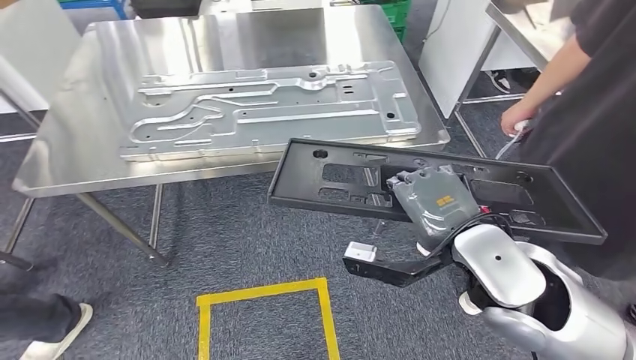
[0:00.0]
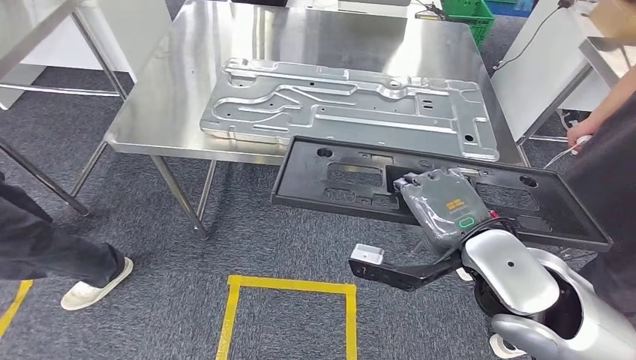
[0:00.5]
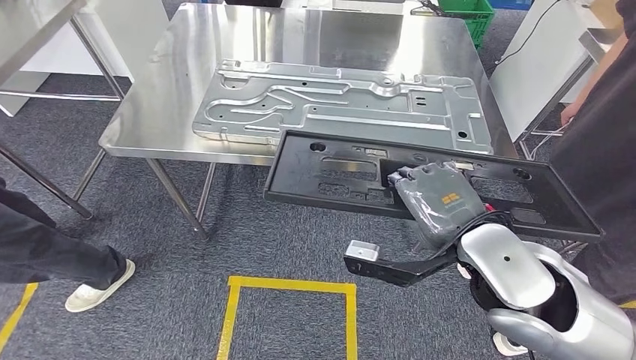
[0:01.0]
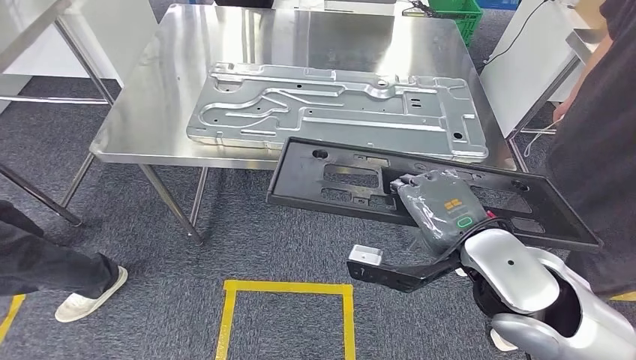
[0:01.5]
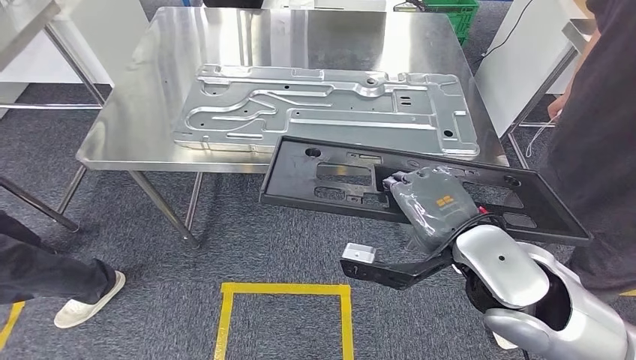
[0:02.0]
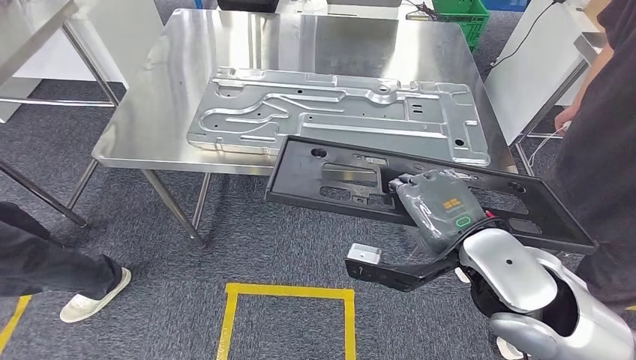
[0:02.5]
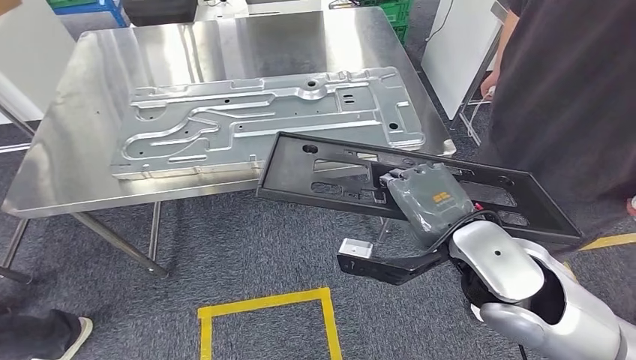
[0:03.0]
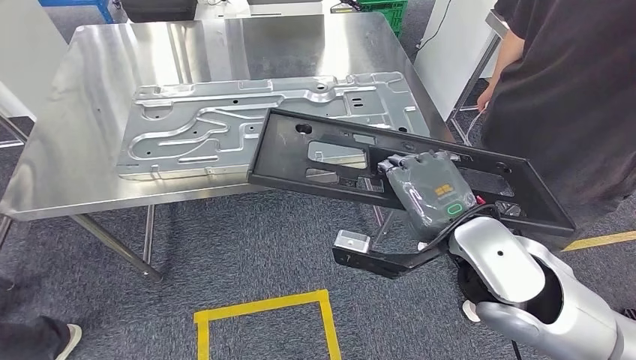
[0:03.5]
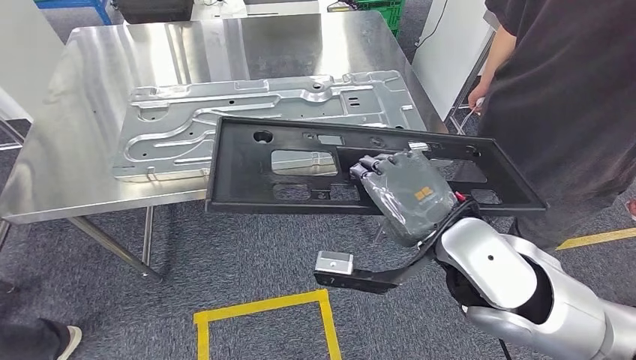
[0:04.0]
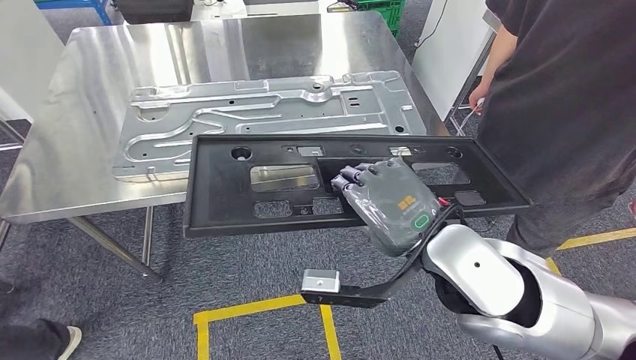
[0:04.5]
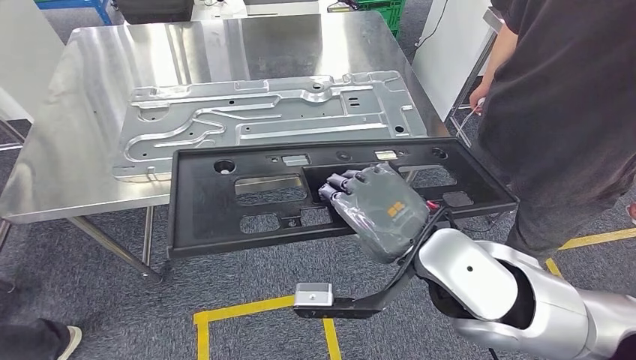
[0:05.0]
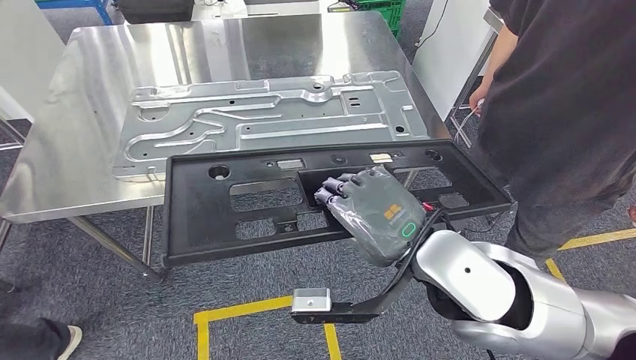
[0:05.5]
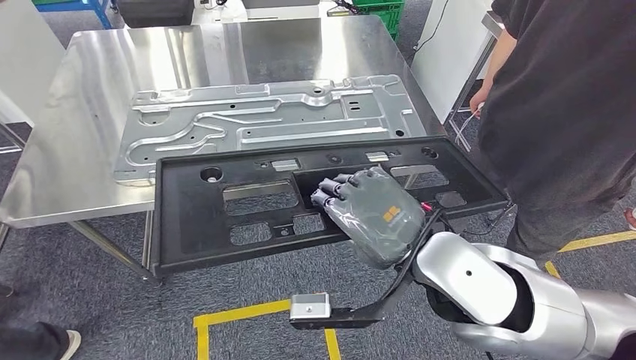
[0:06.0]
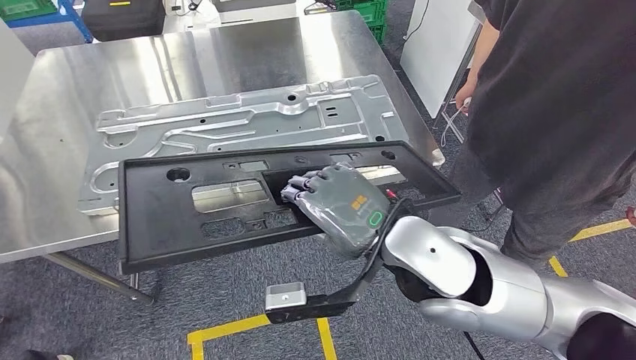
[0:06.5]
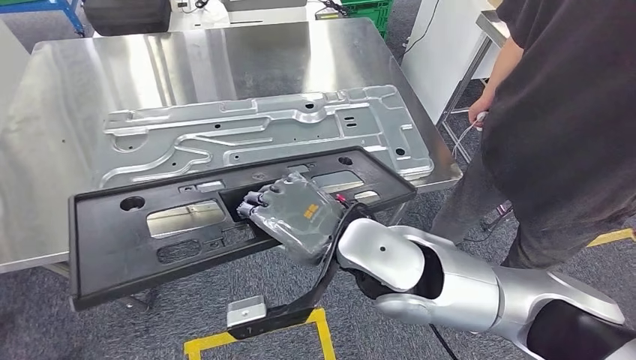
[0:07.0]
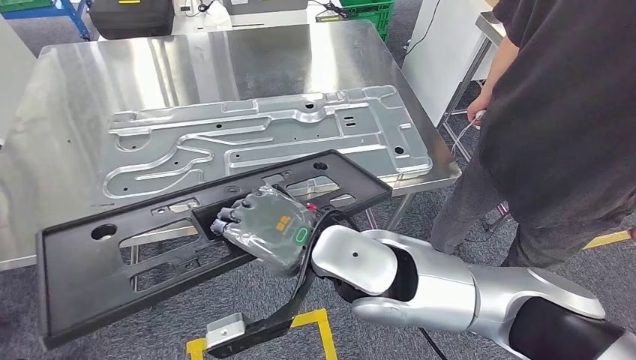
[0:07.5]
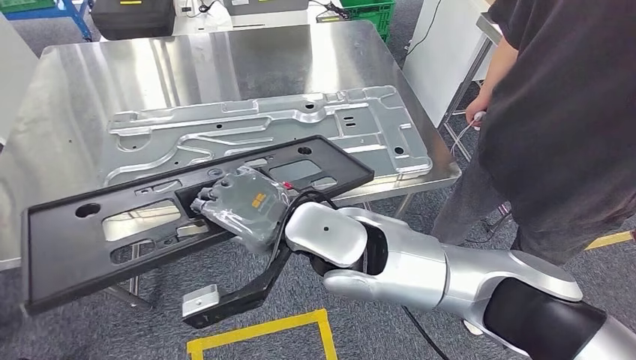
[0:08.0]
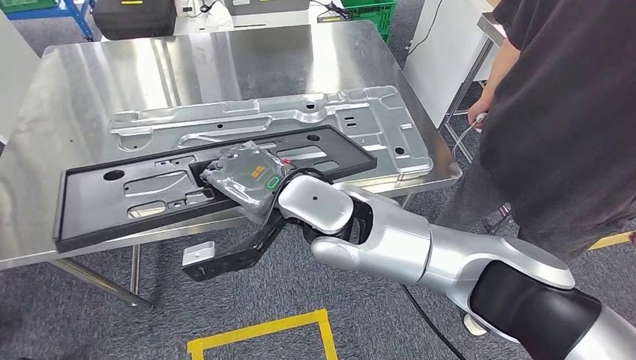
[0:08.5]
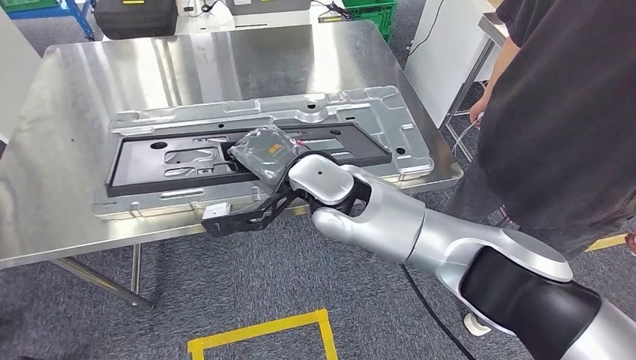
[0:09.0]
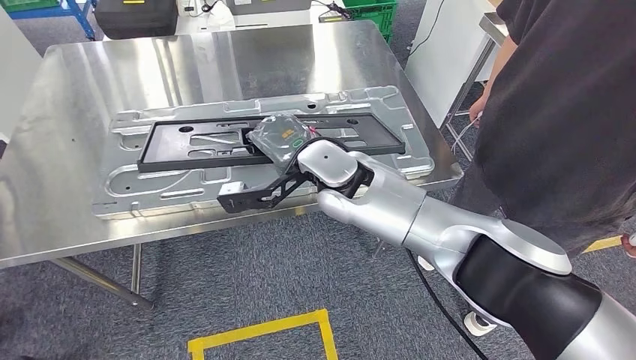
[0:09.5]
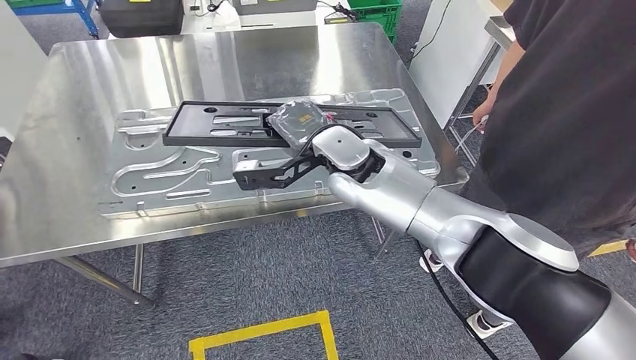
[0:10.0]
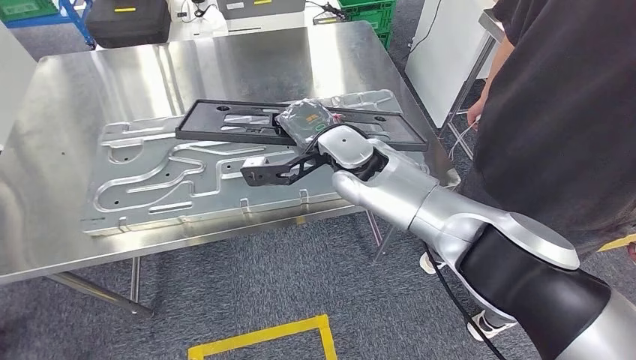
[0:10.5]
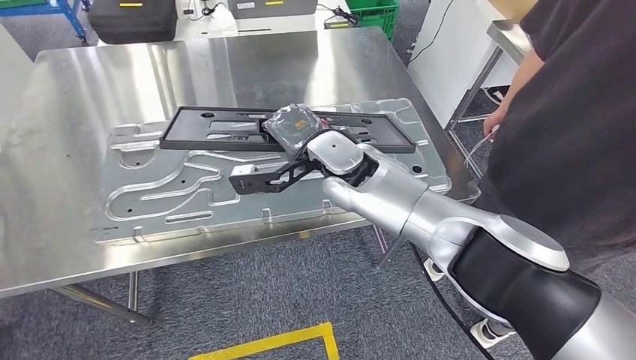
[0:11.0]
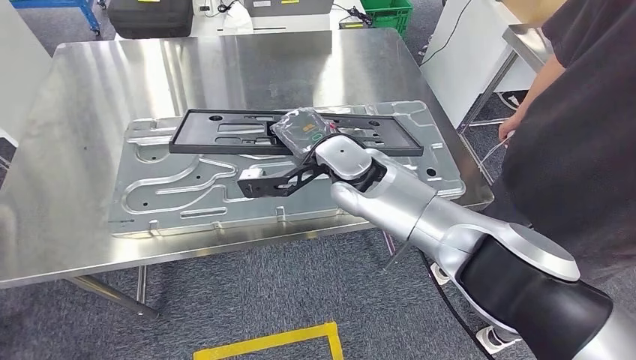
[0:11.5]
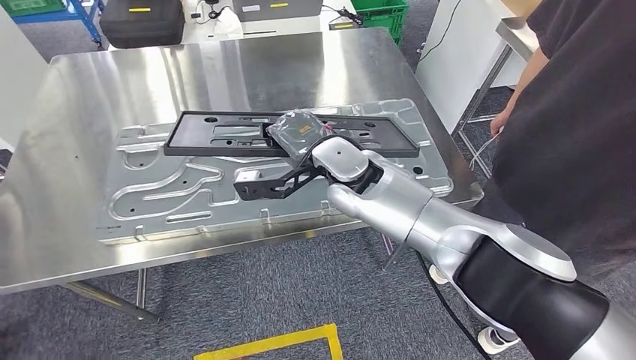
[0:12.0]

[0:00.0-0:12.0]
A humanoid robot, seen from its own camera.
Step, 0:00.0 to 0:05.0: Move the large material to the workbench.

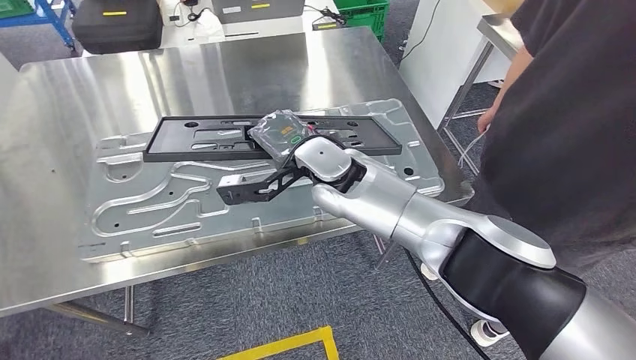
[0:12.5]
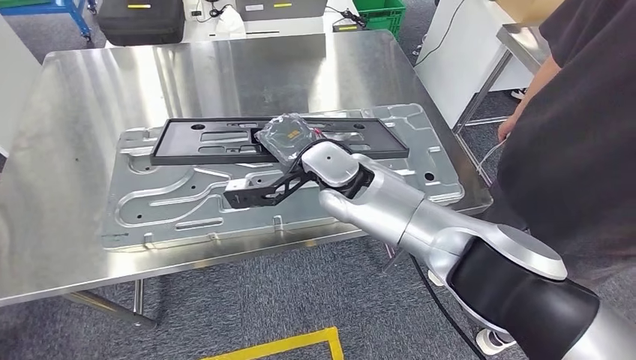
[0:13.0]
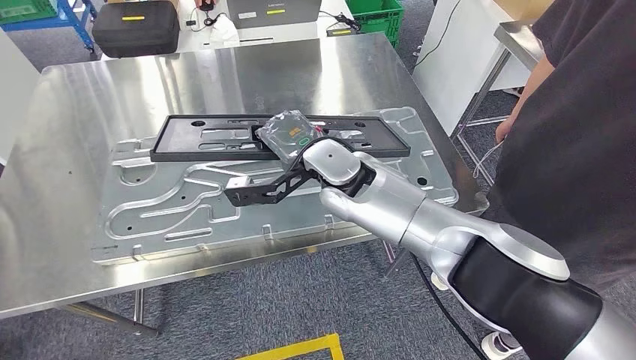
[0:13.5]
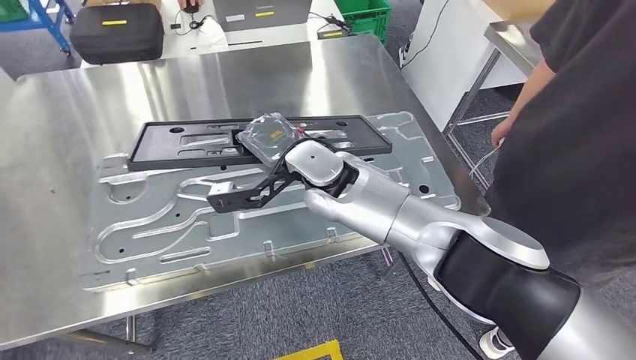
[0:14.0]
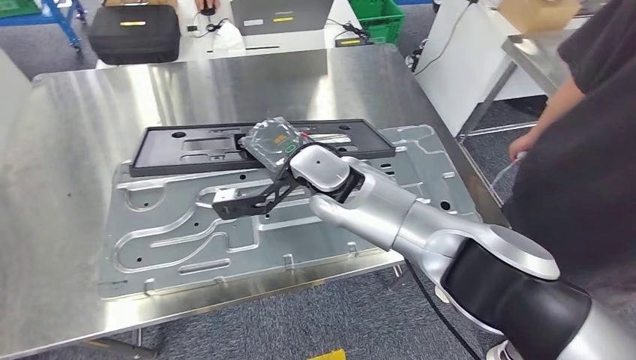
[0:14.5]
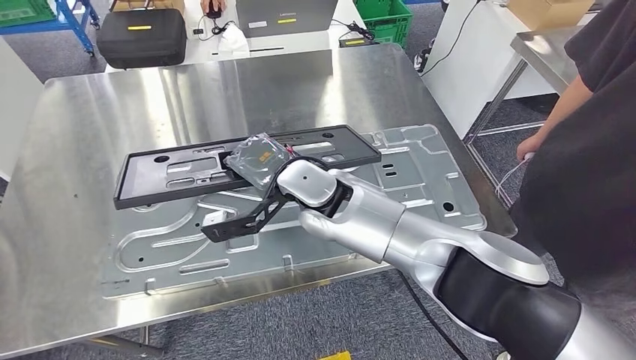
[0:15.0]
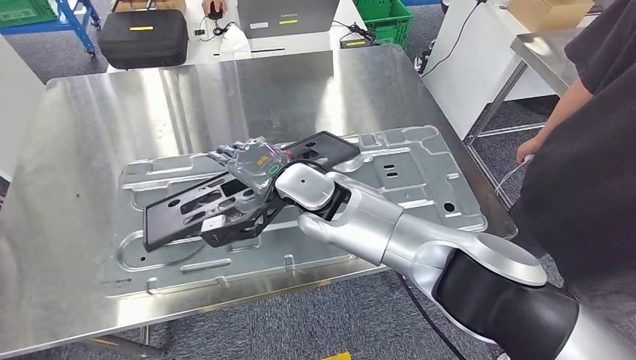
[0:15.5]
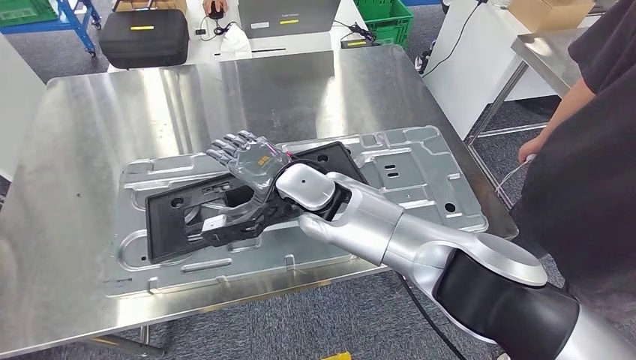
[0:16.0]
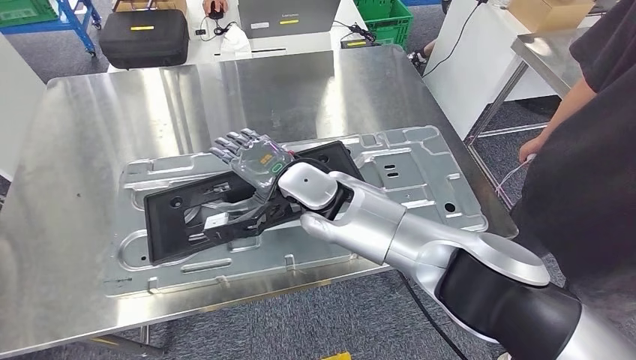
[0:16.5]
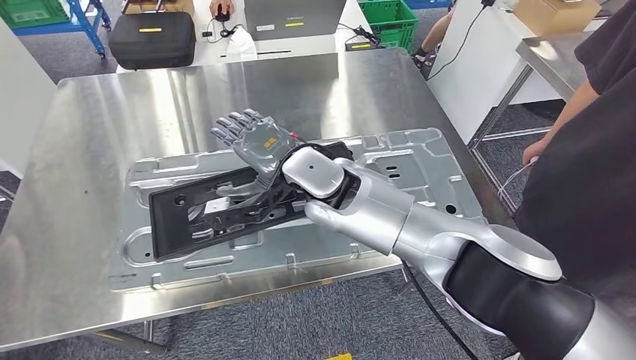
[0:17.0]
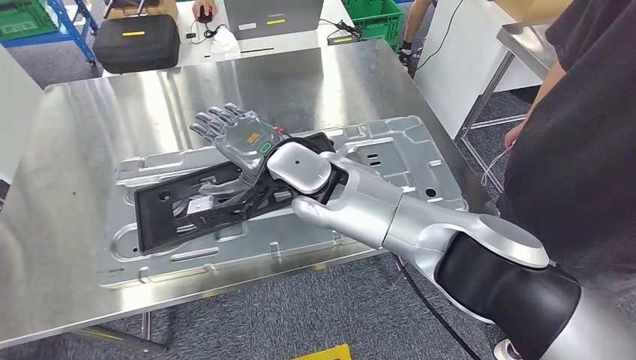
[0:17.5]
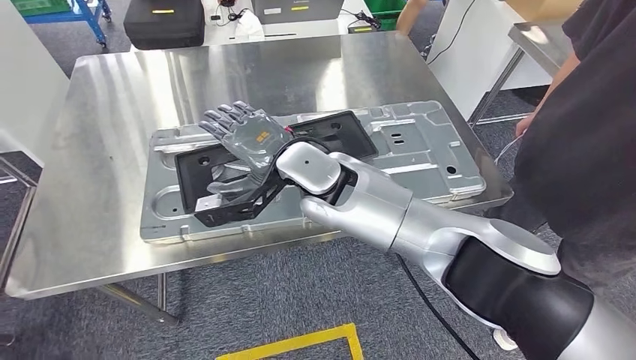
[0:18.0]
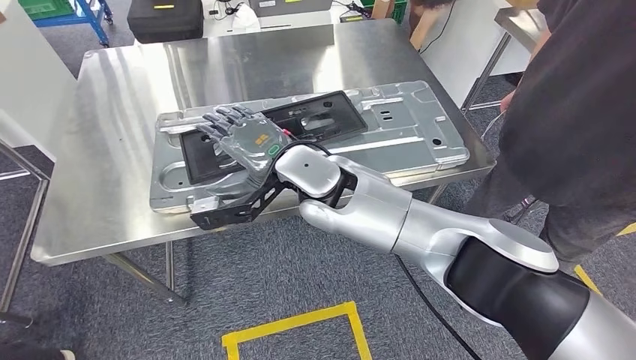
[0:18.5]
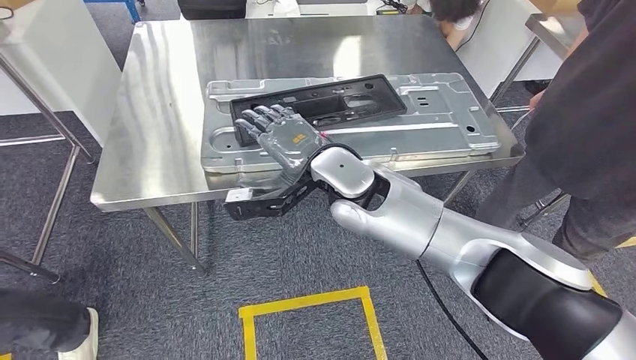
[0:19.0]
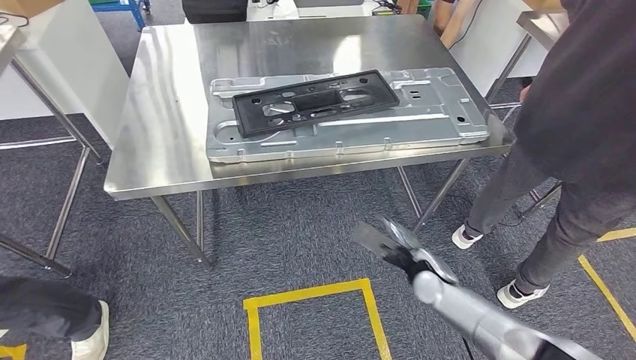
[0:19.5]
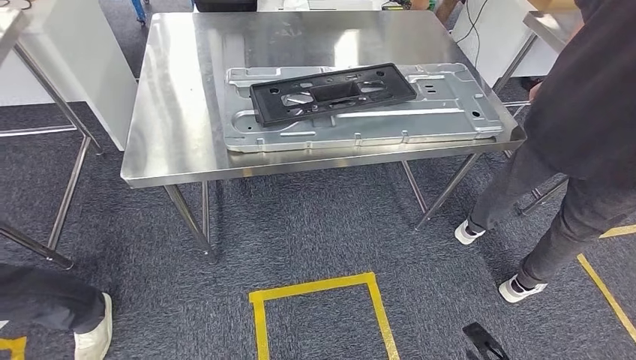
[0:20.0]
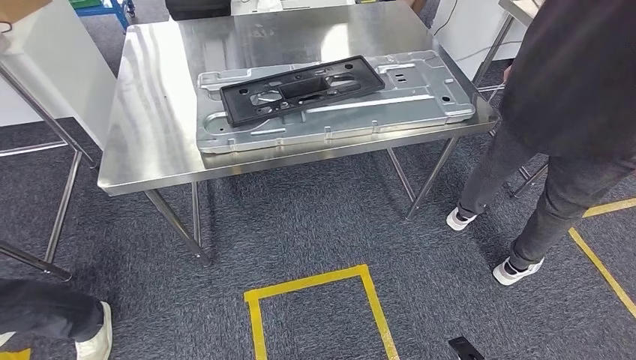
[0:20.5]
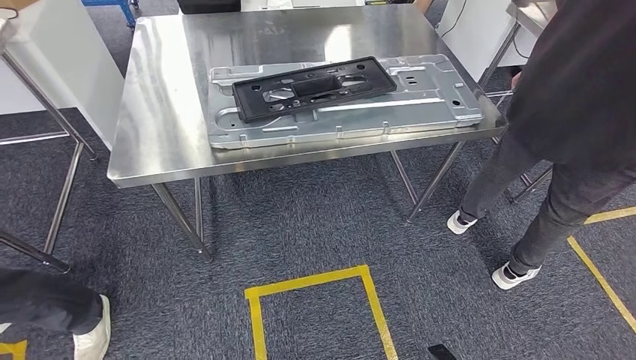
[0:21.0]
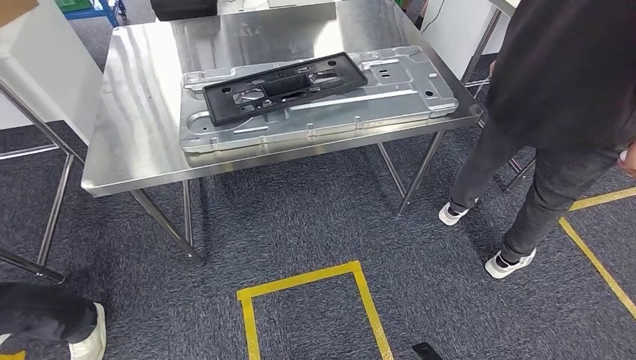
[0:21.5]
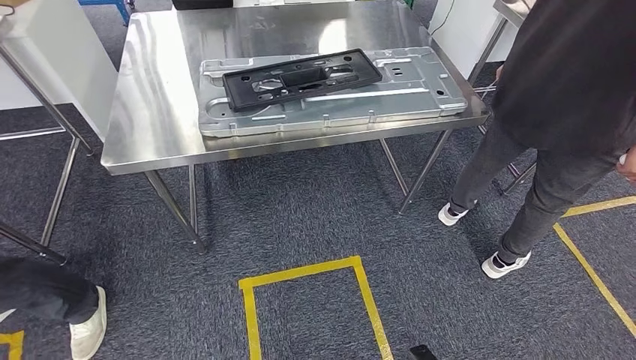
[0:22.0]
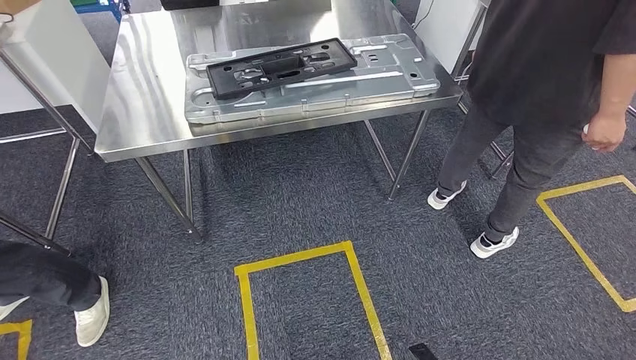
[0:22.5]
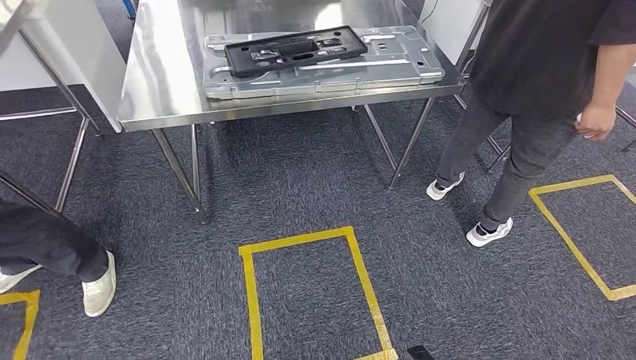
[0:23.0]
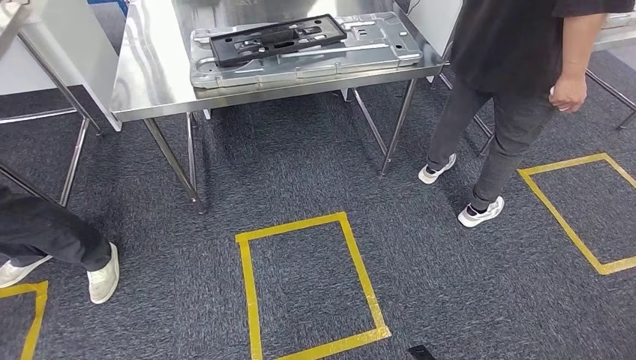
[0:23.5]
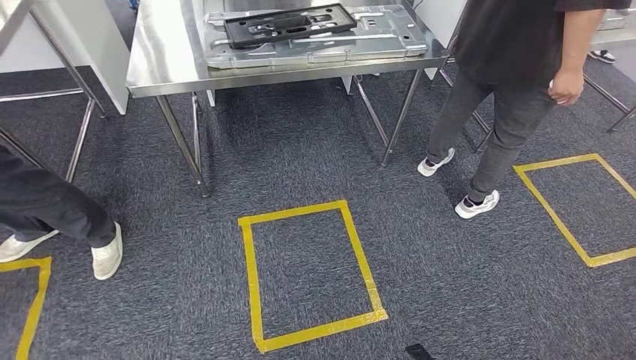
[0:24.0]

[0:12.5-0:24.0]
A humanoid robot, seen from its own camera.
Step, 0:12.5 to 0:20.5: Insert the large material into the corresponding slot on the workbench.
